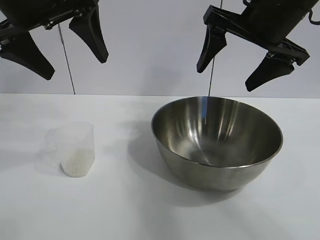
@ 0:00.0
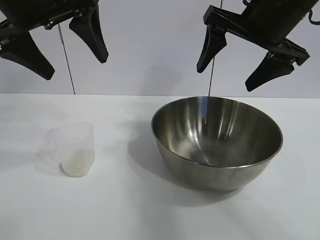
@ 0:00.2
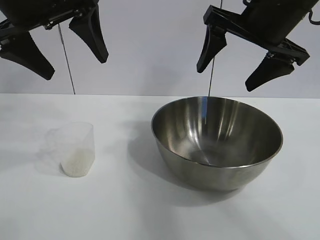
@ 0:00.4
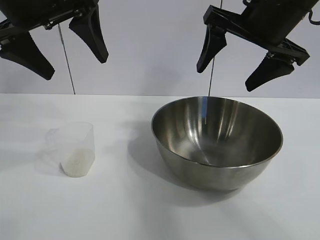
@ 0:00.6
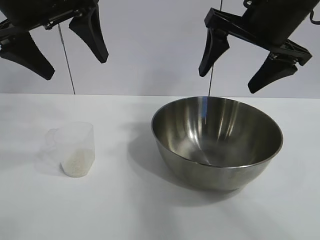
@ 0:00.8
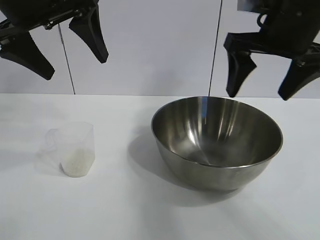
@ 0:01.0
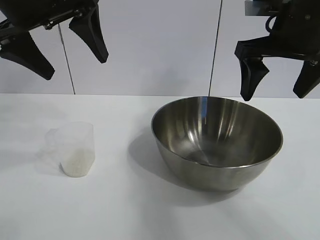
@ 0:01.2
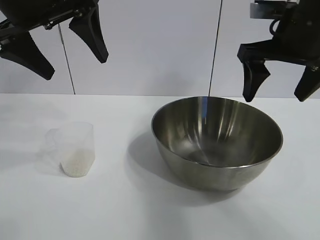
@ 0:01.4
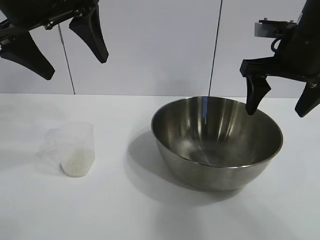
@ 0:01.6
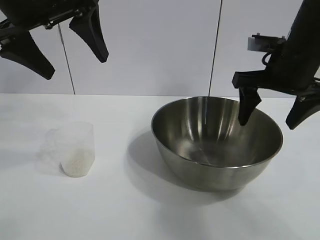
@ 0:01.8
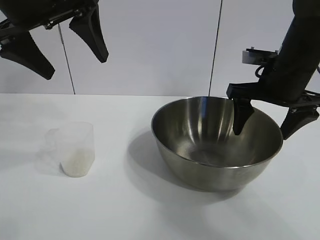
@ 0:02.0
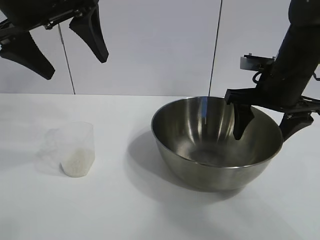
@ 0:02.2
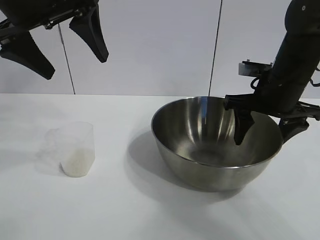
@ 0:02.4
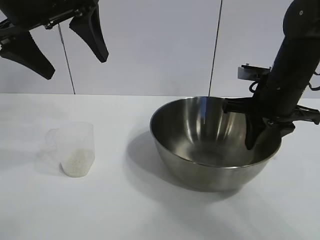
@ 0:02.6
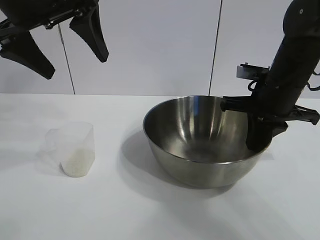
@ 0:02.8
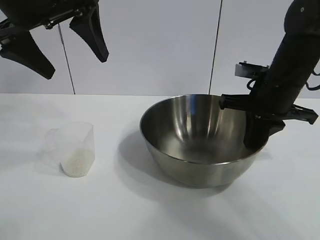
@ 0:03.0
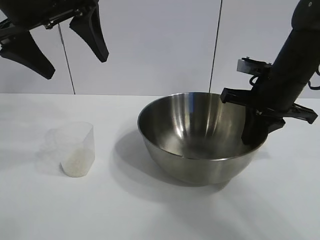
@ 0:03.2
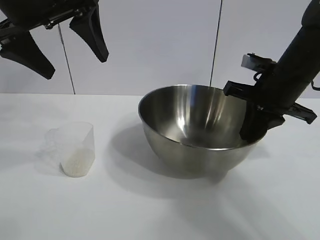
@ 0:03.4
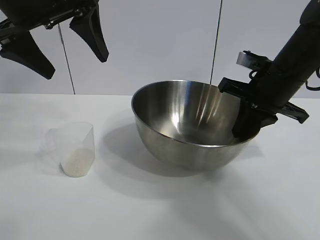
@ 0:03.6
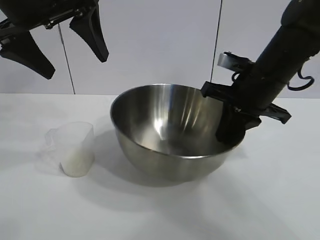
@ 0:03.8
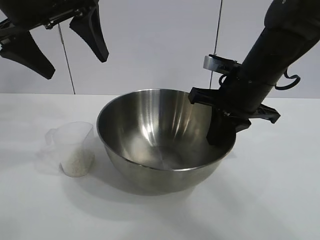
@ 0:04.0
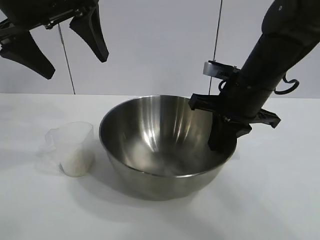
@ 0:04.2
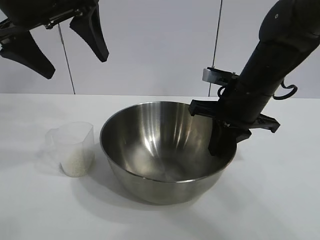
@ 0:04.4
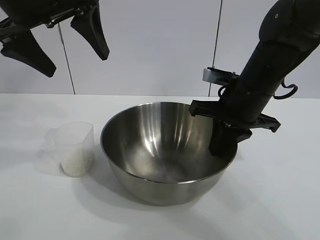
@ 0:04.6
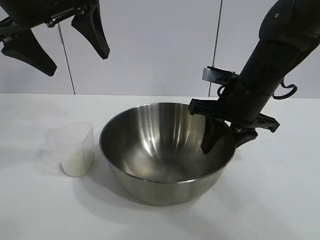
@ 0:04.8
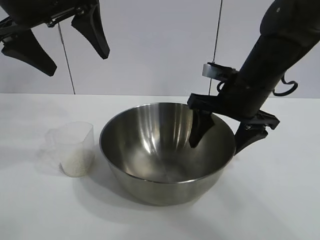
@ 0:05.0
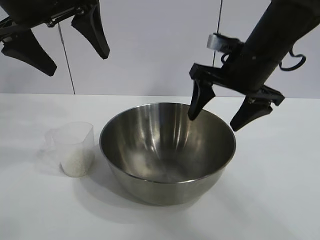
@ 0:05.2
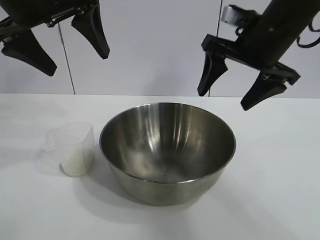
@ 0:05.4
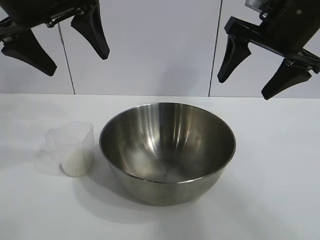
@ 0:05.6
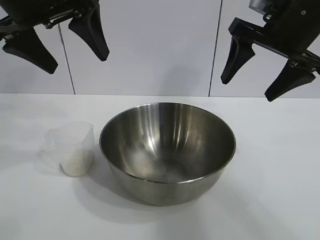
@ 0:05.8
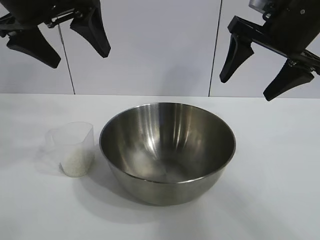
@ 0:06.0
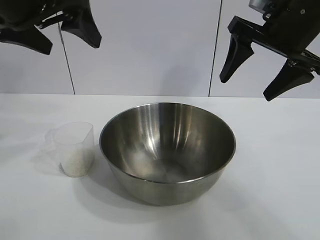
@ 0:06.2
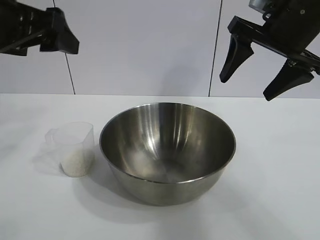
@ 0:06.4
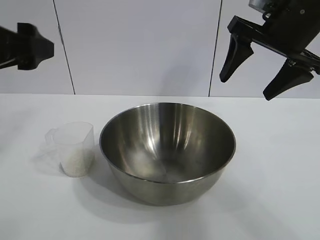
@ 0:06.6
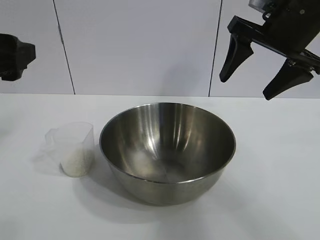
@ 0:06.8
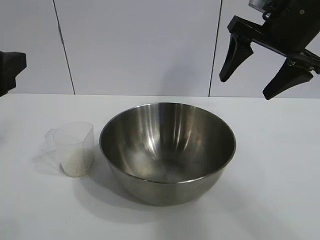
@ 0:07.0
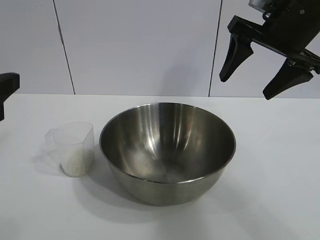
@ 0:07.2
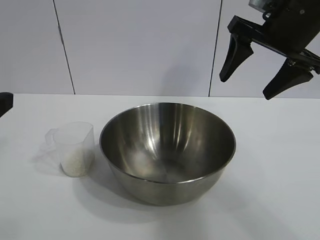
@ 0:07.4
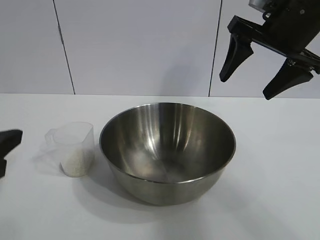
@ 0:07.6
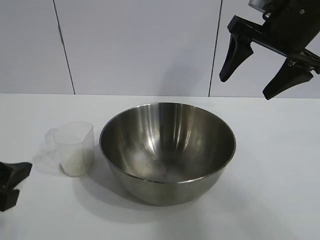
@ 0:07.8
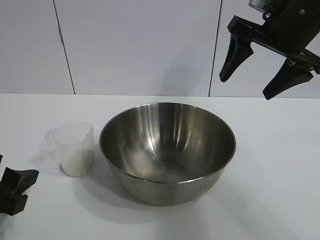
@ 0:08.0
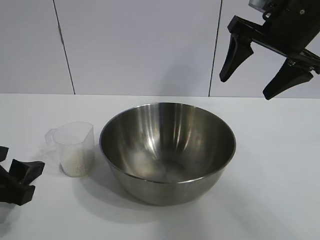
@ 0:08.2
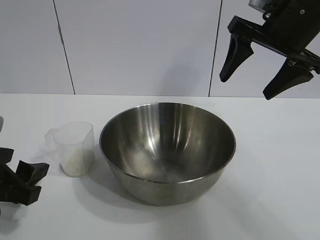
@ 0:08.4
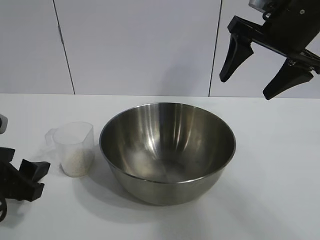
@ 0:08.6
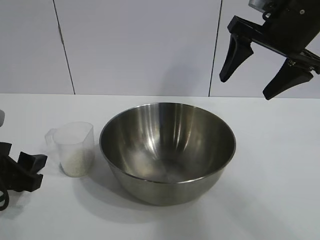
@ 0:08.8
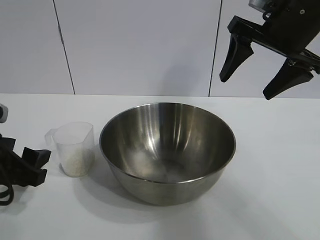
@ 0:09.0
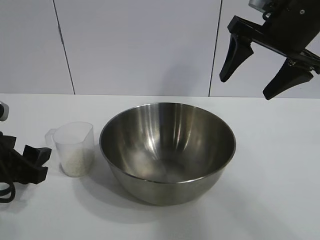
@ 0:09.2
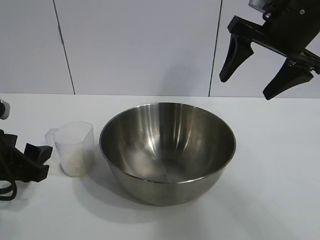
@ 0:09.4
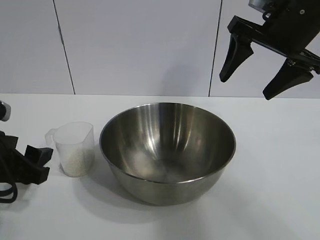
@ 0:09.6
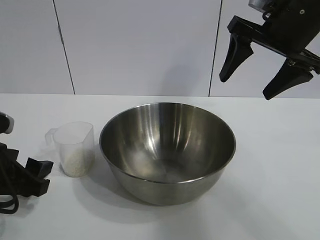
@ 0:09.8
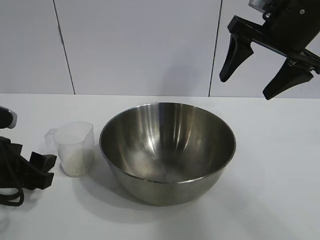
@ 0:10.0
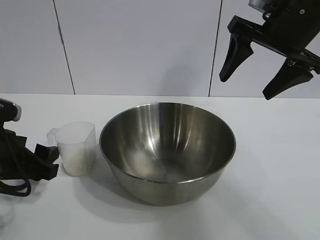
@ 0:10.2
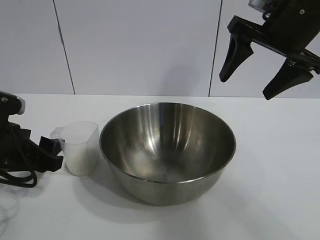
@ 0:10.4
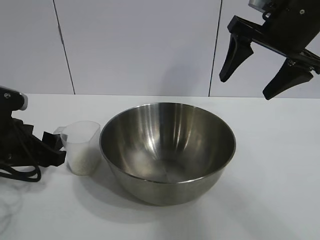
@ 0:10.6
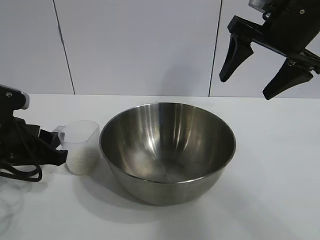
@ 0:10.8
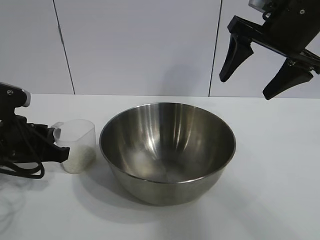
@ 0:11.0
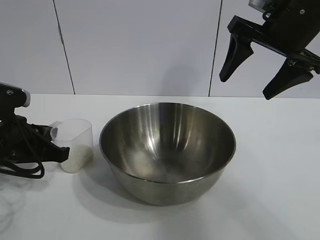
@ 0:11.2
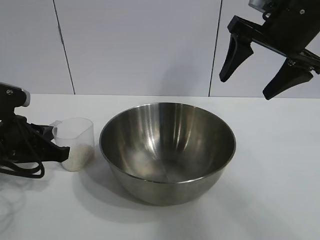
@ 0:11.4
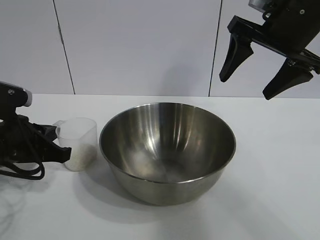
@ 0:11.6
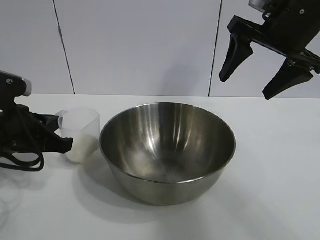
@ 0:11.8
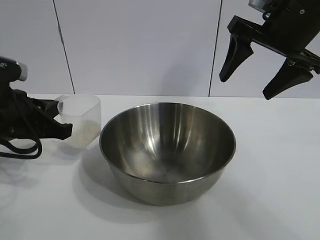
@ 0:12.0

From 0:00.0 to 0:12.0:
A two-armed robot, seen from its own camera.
Task of the whole recording: the right gripper grasp the rice container and place it in the center of the table, the left gripper grasp the rice scoop and pour the rice into the rice container.
Step, from 0:00.6 to 0:04.8: Move the bowl in the center of view with right gripper.
Step, from 0:05.0 to 0:11.4: Grasp the cup with rice in it with left gripper.

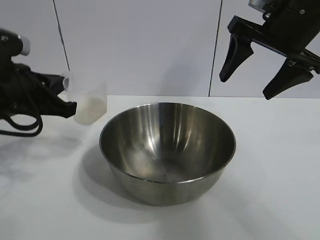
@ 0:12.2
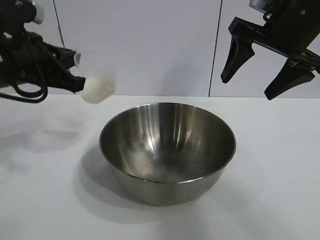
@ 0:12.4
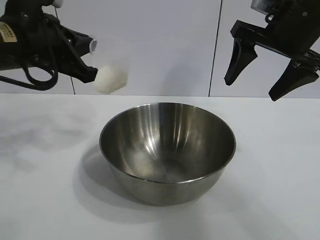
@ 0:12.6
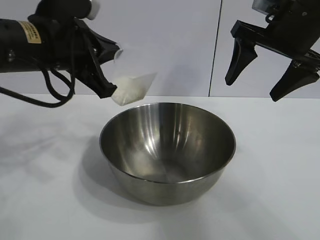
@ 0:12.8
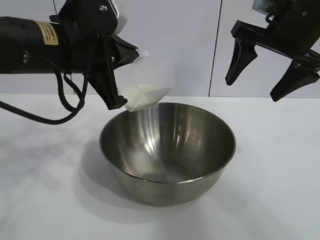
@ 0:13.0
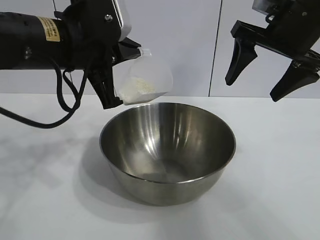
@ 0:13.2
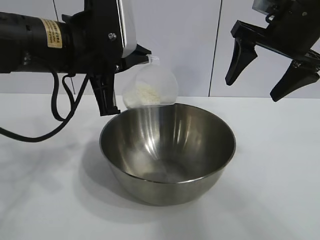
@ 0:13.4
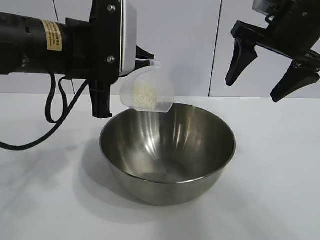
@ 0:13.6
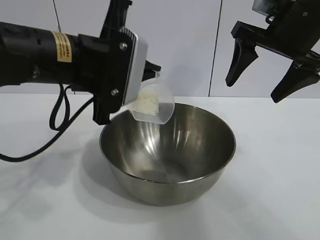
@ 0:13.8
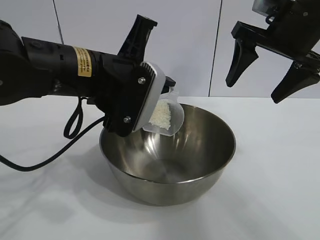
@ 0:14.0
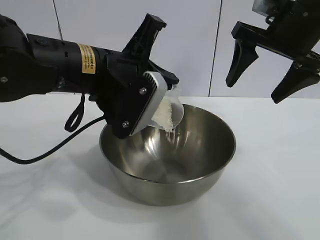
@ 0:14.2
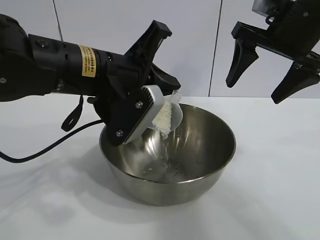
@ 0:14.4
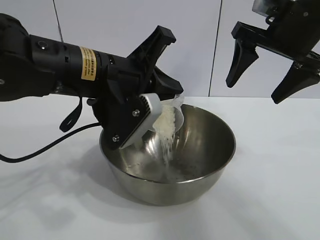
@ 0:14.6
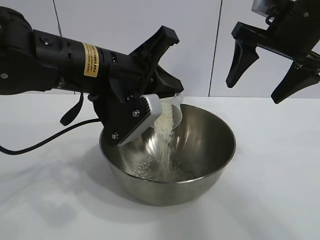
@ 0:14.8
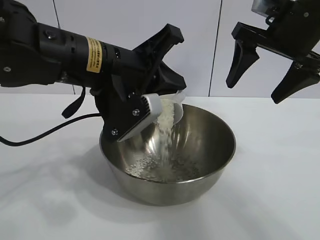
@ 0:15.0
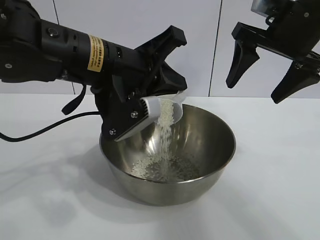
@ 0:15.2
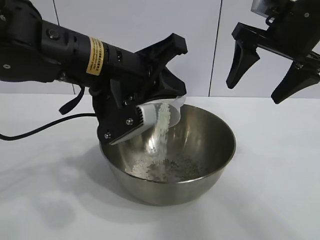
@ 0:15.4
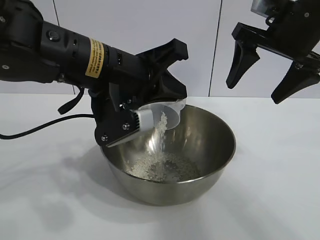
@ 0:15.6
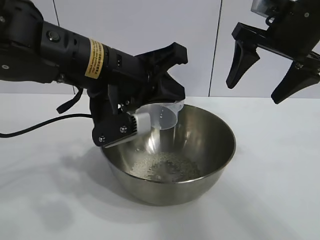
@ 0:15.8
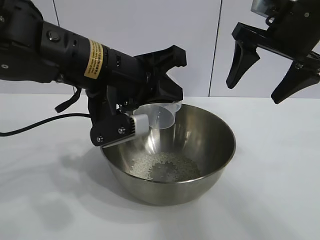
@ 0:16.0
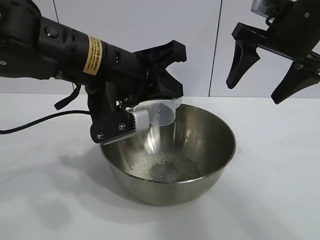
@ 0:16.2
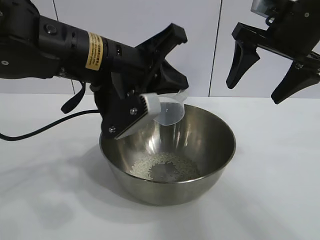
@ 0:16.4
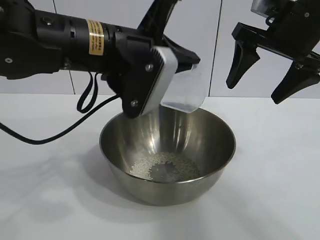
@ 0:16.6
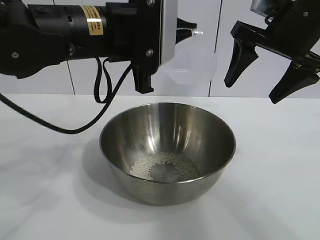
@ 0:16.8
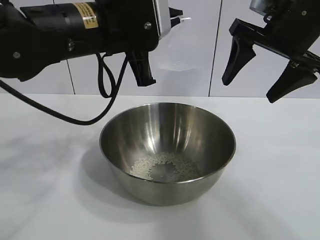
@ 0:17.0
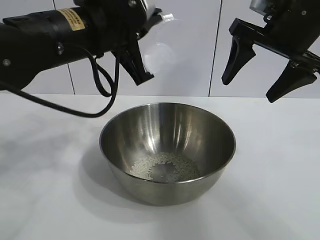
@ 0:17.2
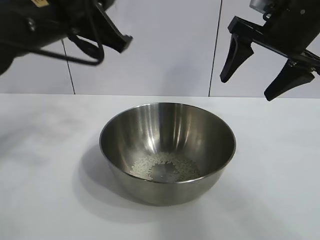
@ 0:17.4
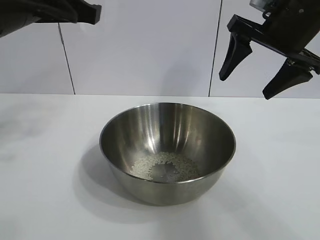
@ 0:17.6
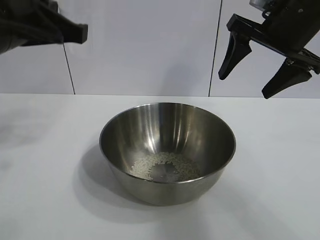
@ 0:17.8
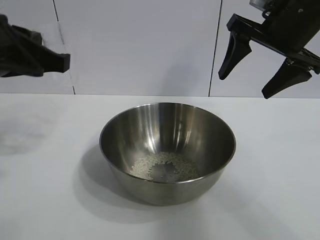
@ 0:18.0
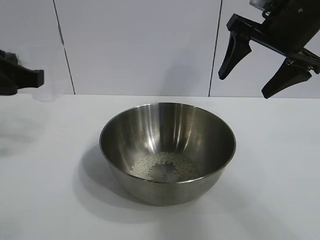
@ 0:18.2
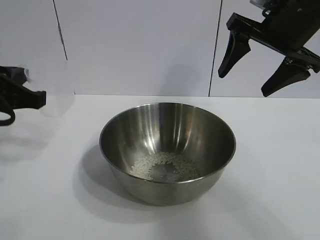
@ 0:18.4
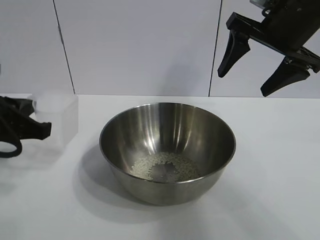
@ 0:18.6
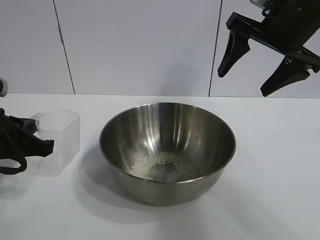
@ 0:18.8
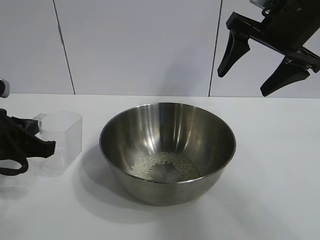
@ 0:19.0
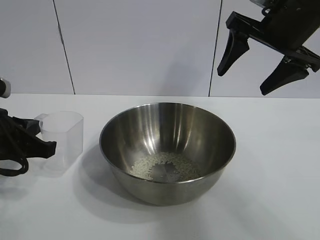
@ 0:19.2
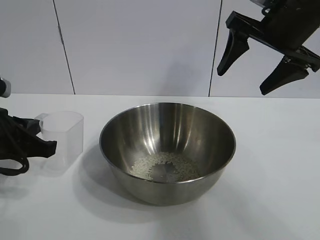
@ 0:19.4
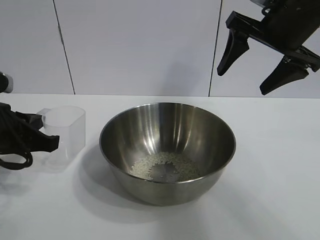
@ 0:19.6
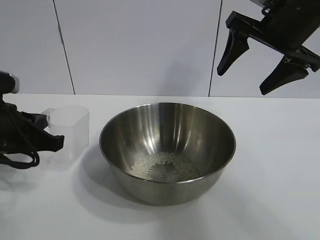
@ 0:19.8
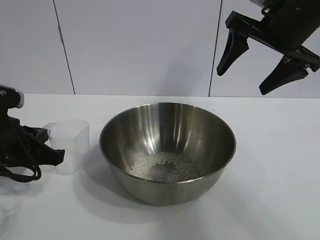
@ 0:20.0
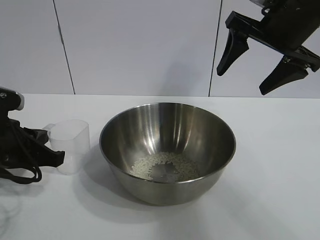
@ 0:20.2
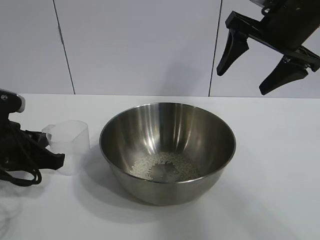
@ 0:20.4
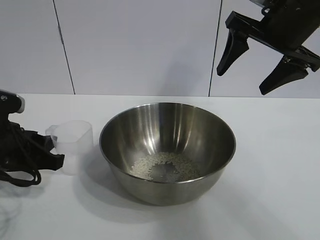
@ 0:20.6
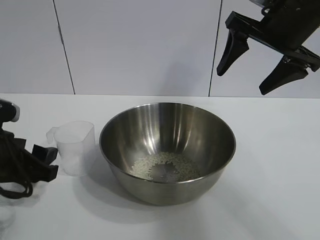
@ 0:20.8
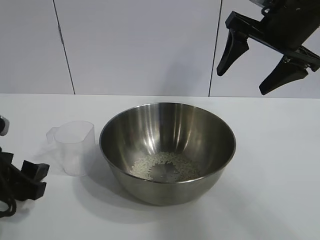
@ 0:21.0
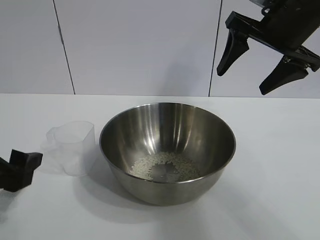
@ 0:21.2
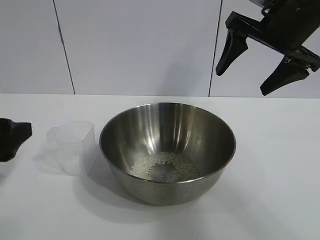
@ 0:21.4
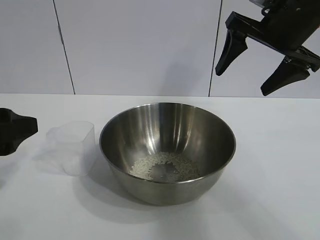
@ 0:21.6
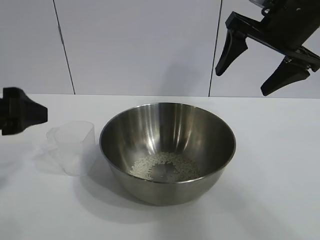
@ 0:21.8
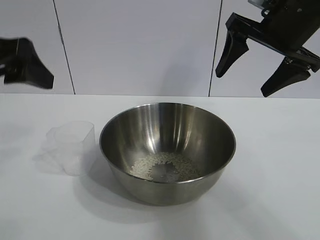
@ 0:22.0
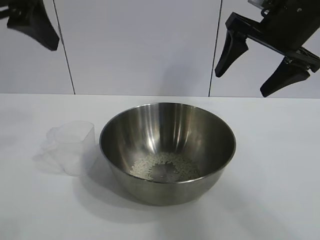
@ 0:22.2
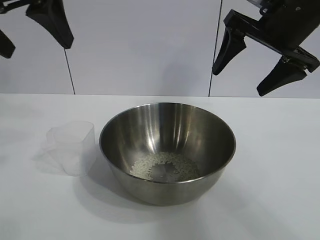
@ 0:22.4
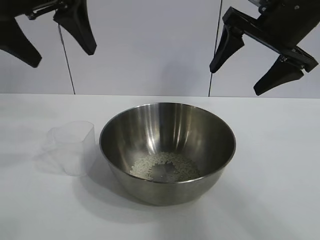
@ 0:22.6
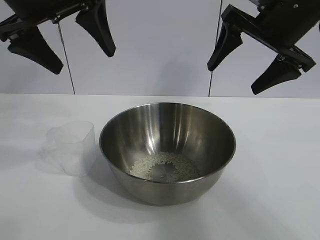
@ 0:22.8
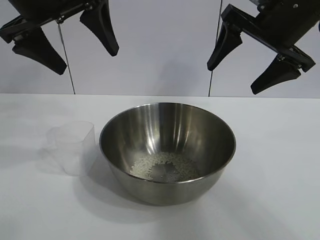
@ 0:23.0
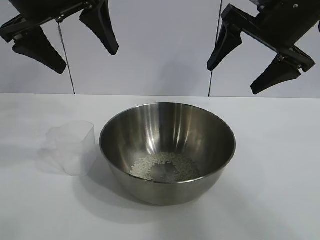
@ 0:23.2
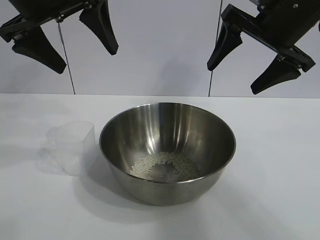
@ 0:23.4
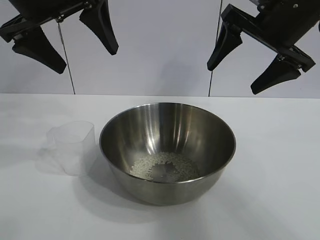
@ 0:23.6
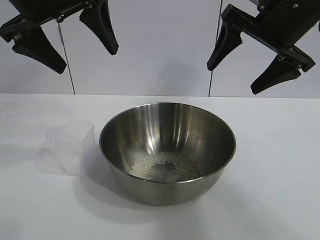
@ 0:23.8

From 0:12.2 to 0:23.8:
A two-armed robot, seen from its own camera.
Task of the whole recording: the right gripper grasp the rice container and place it in the center of the table, the left gripper grasp the rice scoop and pour the rice into the rice container.
Step, from 0:12.2 to 0:16.0: Pour the rice from the cup into the bowl with the left gripper.
Step, from 0:16.2 to 0:20.6: Place the cup on the table with the left gripper.
